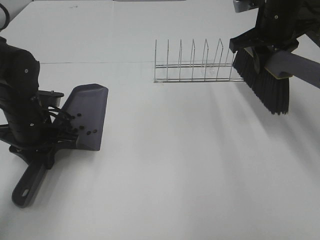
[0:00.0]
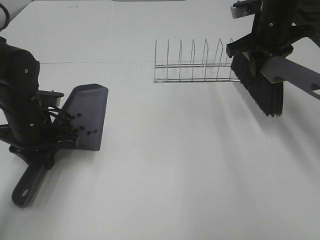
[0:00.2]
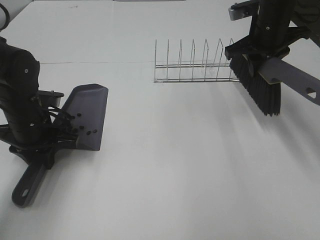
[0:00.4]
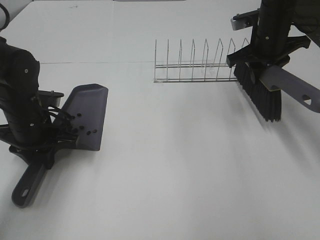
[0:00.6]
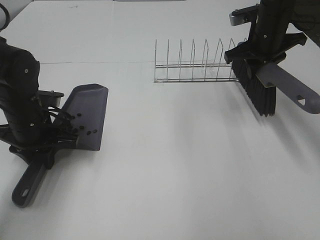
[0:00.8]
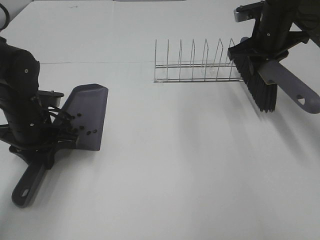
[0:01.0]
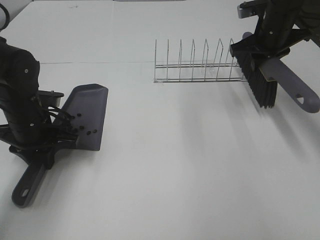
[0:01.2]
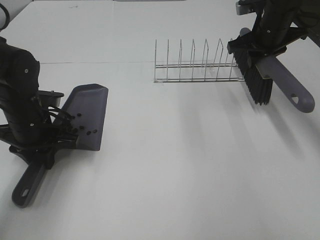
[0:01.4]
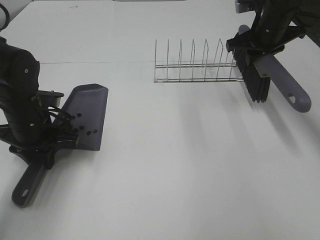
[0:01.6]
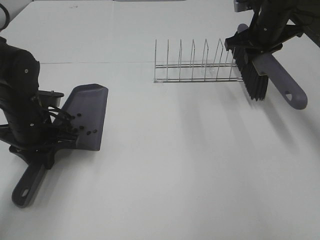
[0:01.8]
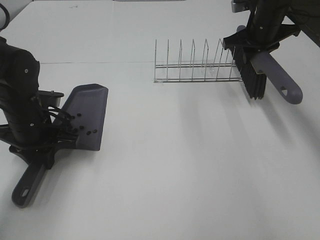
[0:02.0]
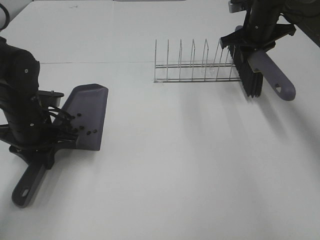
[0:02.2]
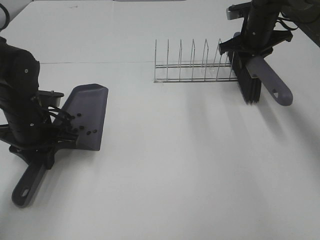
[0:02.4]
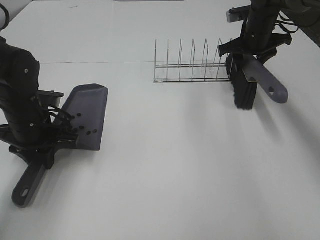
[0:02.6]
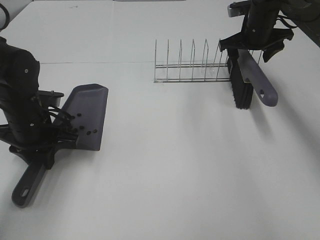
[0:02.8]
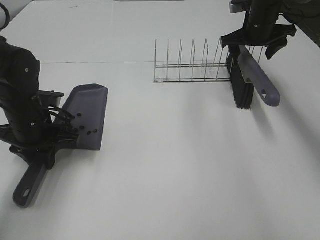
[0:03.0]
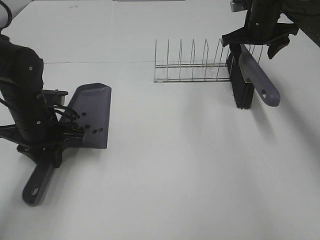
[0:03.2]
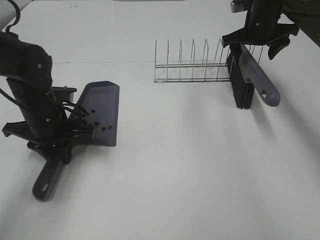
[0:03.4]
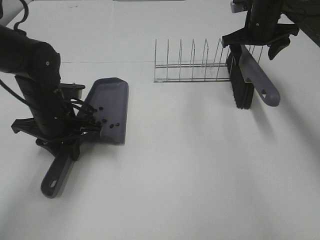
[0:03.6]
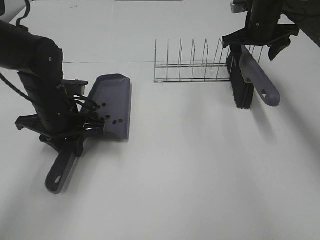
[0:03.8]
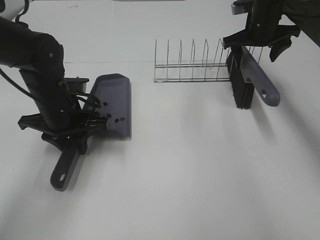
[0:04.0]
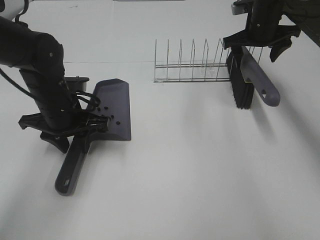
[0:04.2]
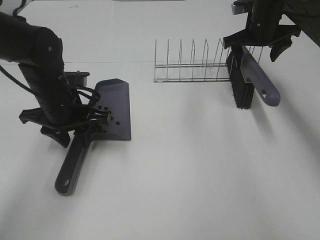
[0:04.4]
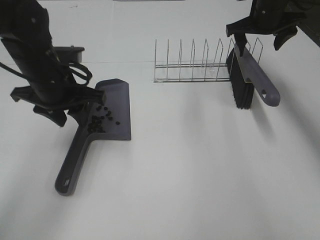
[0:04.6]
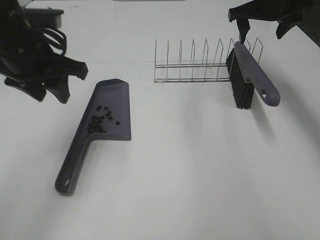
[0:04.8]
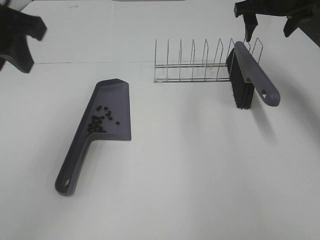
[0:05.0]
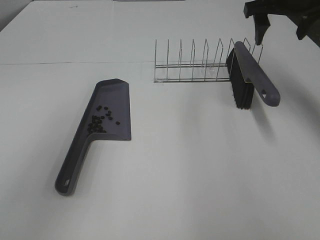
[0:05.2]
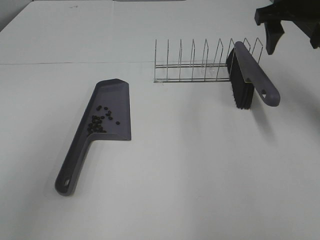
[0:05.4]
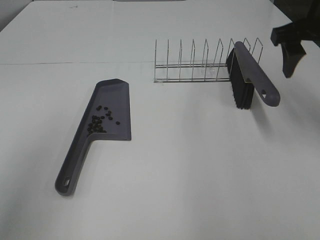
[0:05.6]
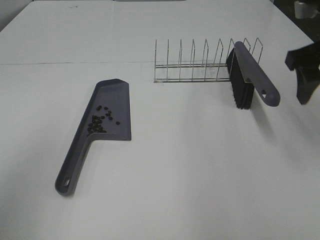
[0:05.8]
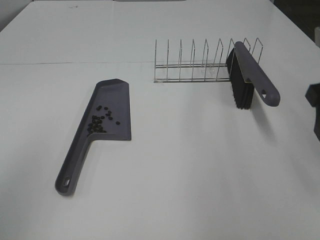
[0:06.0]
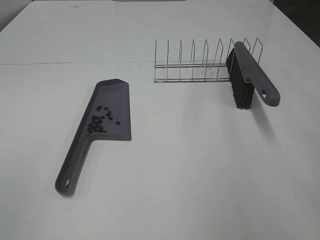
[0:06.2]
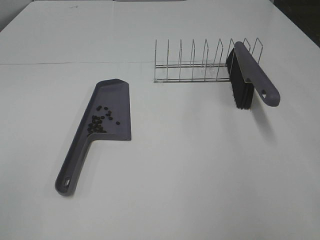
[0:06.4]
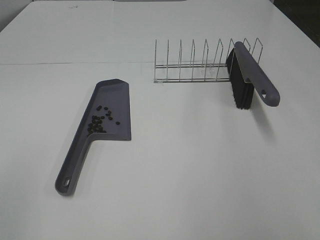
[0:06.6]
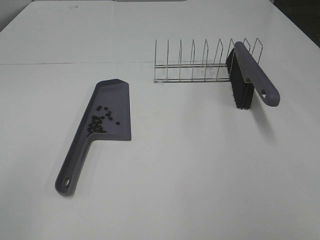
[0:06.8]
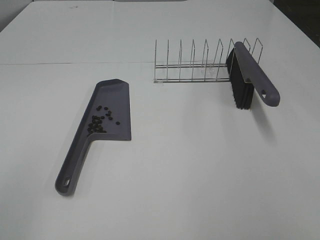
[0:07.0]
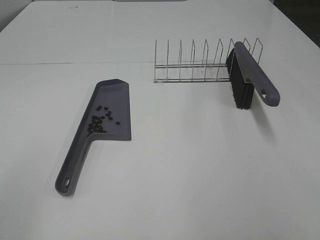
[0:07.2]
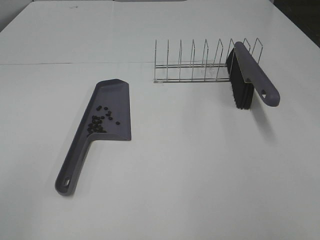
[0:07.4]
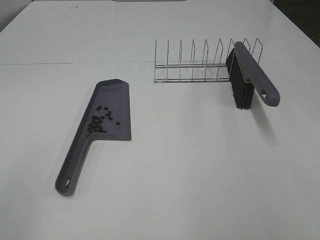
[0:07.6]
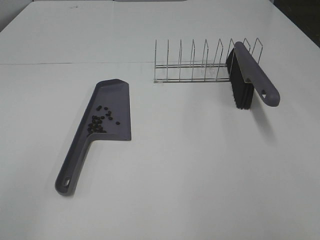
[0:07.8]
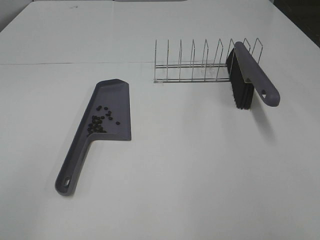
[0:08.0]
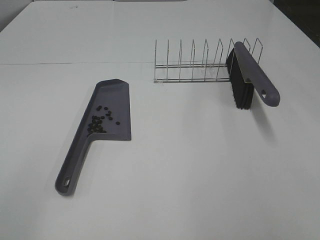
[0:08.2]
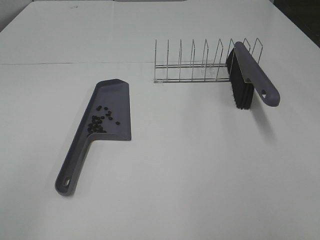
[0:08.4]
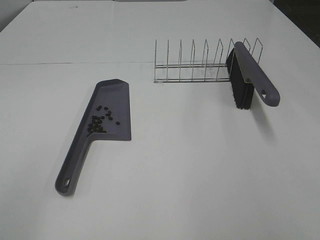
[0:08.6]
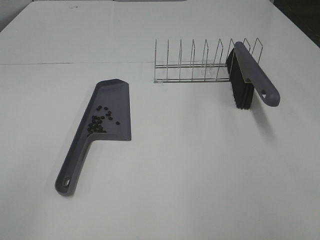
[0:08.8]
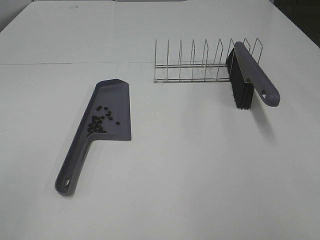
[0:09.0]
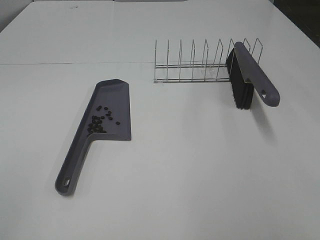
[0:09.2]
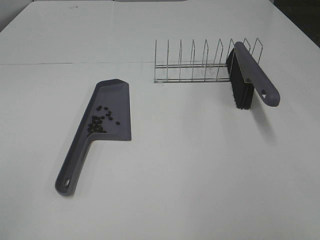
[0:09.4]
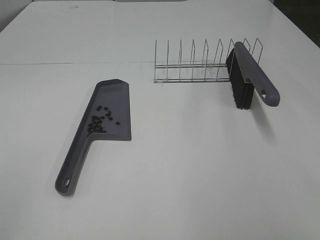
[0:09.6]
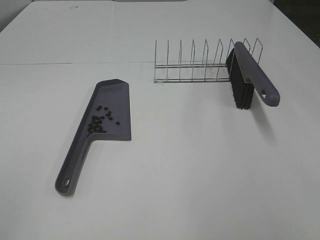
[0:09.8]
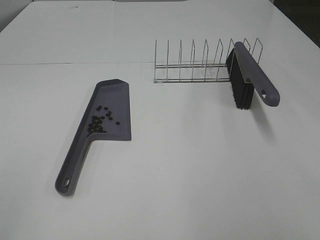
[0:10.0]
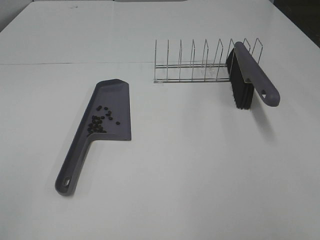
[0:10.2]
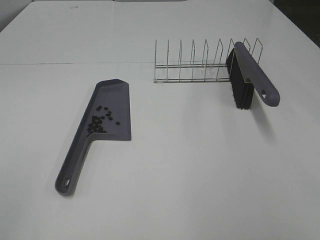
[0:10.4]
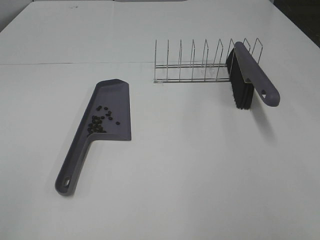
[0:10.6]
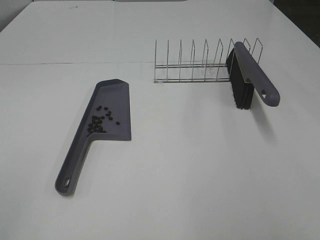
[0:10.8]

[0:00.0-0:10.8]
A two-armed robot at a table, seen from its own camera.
Task of the whole recording: Sweep Coffee Bean.
Step, 0:00.0 to 0:03.0: Right hand:place the broom on the rack.
Step, 0:03.2 to 0:04.6: Left hand:place the dustpan on the table.
0:00.0 to 0:01.6: The right gripper moves approximately 5 cm.
0:01.6 to 0:03.0: The right gripper opens its fingers.
0:03.0 to 0:04.6: The left gripper is displaced upward by about 10 cm, and opens.
0:04.6 to 0:06.2: The right gripper goes approximately 35 cm backward, while the left gripper travels backward and to the left by approximately 35 cm.
0:09.2 to 0:10.8: The two grippers keep their place.

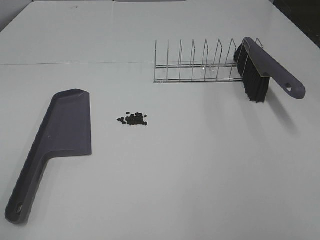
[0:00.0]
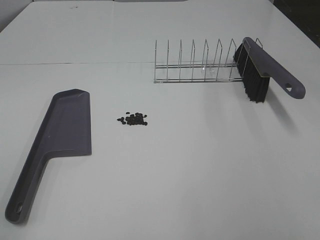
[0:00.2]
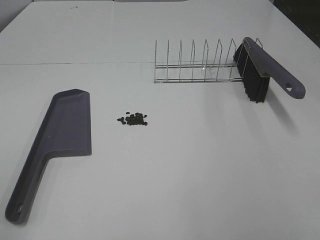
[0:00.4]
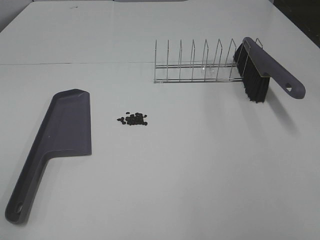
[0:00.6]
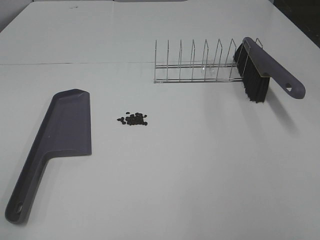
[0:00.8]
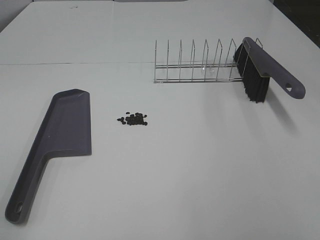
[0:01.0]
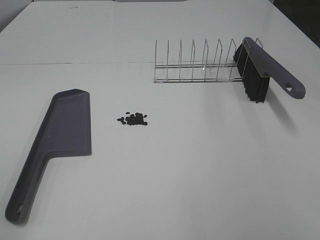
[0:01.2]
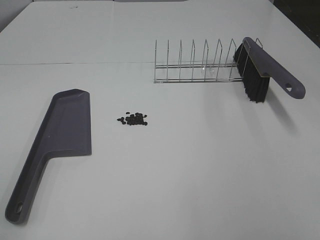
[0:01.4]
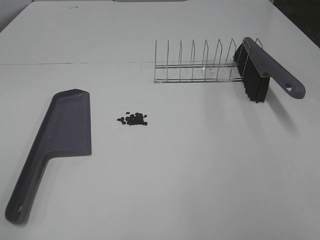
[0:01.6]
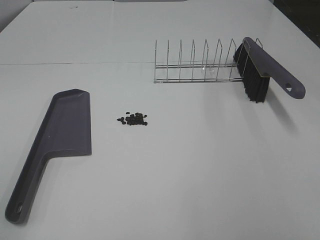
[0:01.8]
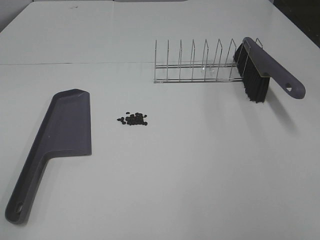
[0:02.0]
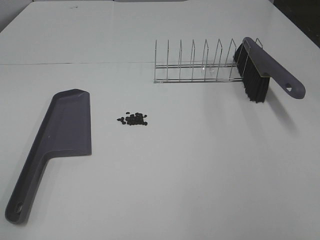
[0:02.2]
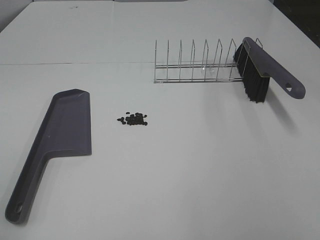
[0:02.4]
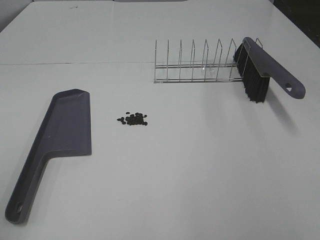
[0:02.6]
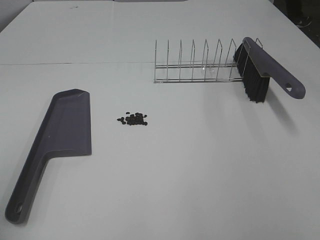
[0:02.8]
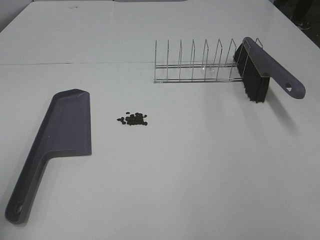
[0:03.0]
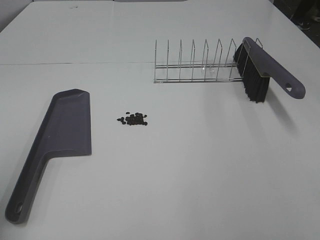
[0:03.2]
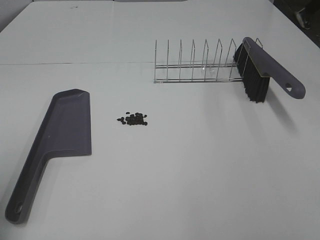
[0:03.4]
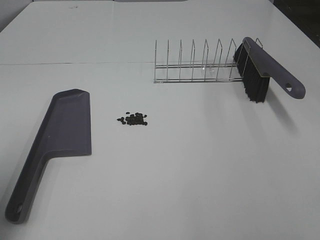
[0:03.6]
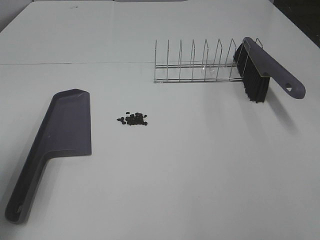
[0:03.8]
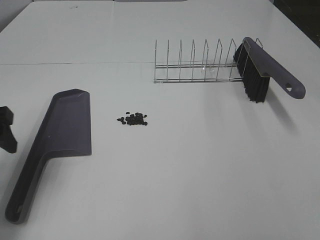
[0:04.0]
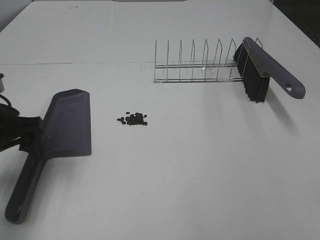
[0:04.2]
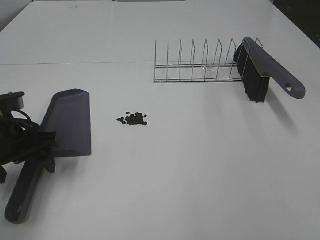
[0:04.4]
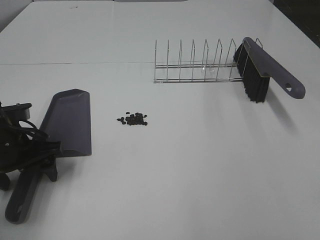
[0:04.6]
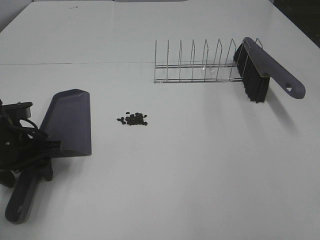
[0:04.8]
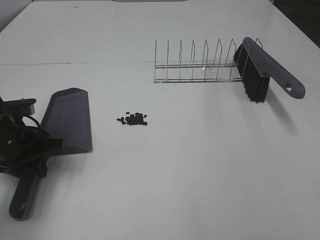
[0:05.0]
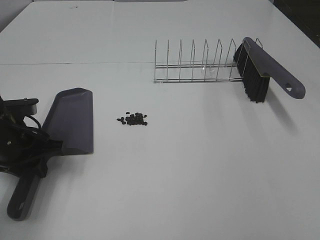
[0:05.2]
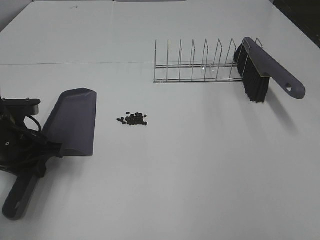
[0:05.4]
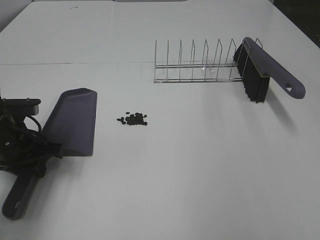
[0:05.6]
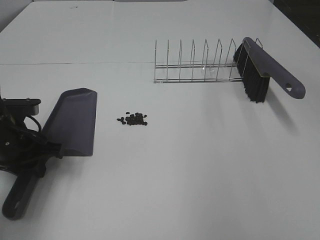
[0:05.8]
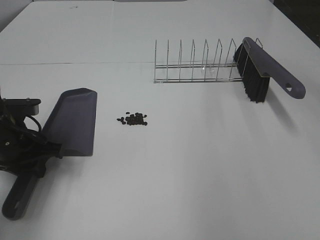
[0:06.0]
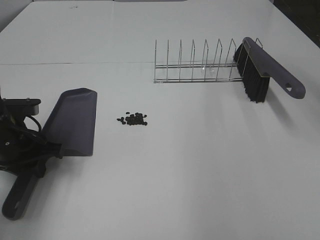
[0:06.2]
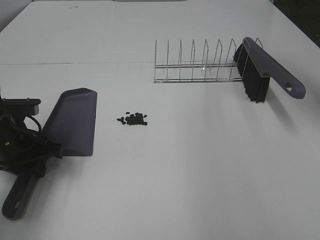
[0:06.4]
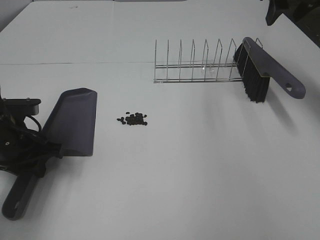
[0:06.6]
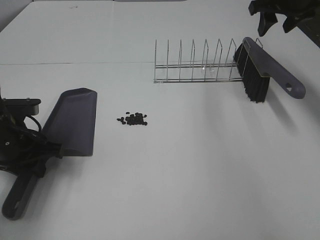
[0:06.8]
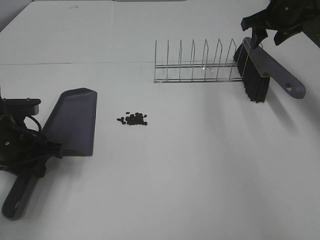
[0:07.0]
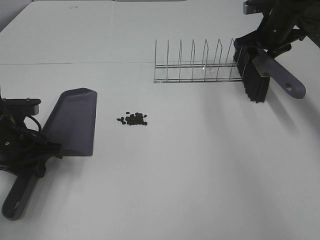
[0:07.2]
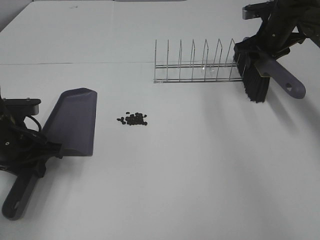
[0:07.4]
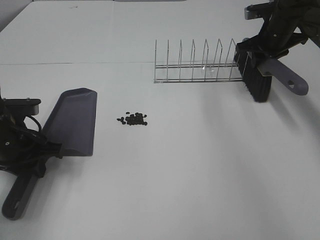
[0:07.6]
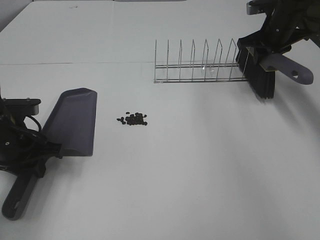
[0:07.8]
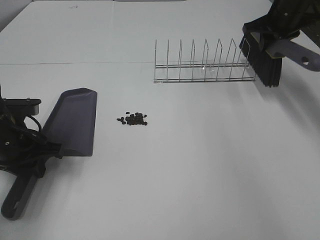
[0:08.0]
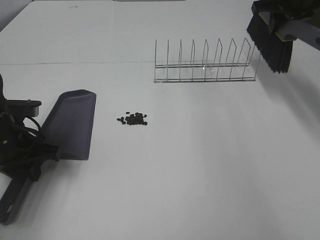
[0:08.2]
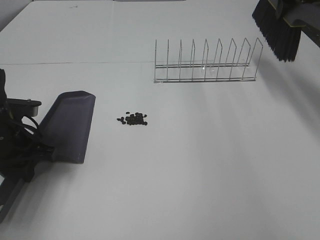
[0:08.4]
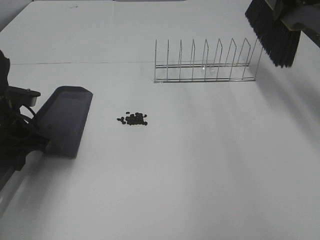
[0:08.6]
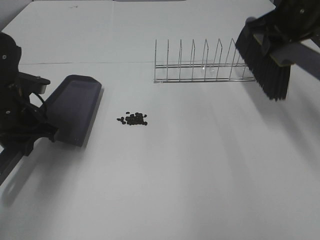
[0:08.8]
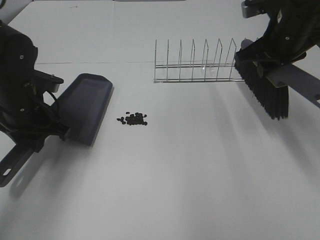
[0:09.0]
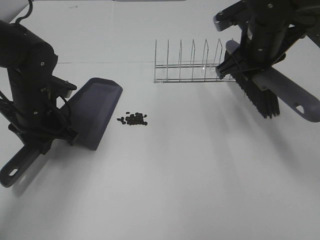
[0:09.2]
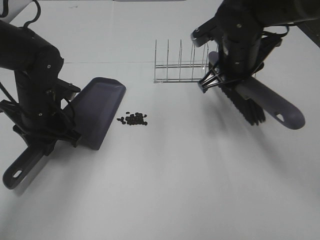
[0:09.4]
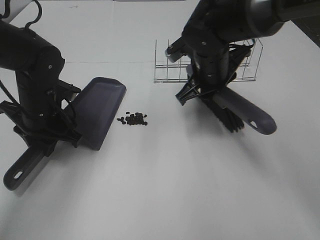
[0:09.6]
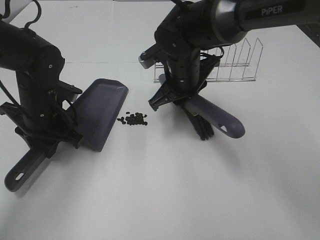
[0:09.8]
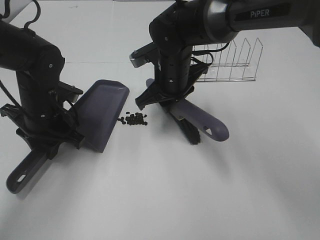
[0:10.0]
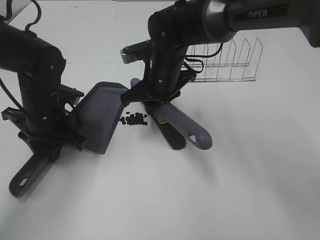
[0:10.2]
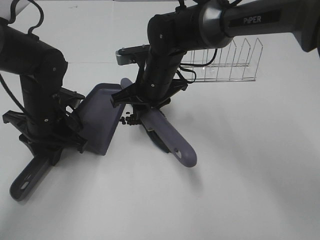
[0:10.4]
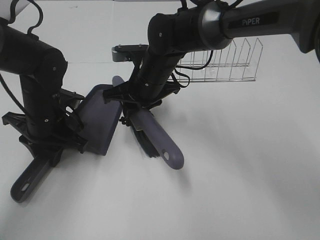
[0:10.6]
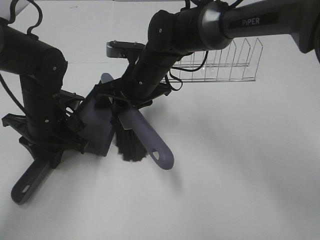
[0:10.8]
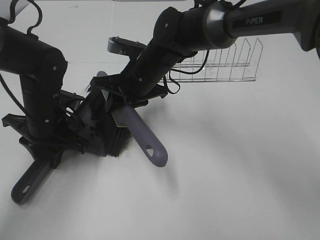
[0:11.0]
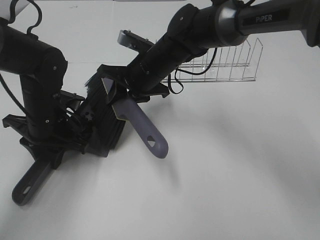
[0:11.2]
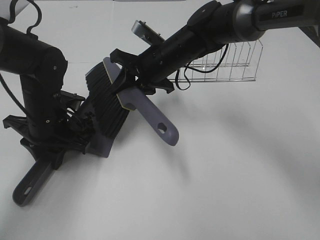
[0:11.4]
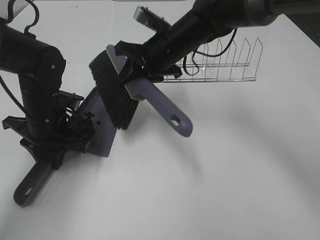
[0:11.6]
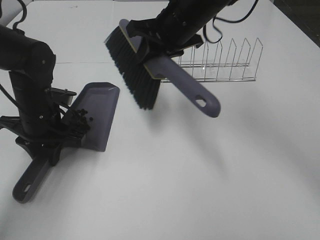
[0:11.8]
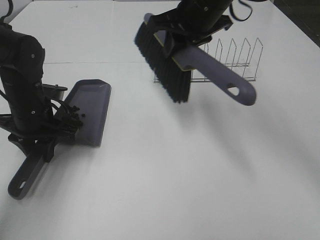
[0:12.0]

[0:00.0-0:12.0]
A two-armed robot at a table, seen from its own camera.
Task of the whole recording: Sweep Coffee Bean.
Step, 0:00.0 to 0:05.0: Left hand: grab the dustpan.
Step, 0:05.0 to 0:07.6: Right hand:grab the broom.
Step, 0:07.8 to 0:11.6: Right hand:sweep the coffee beans into the dustpan.
0:00.0 to 0:01.6: Both grippers stay put.
0:03.0 to 0:04.4: The left gripper shifts about 25 cm forward, downward and to the right.
0:04.4 to 0:06.0: The left gripper closes.
0:06.0 to 0:07.6: The right gripper is displaced forward and downward by roughly 35 cm, and closes.
0:07.6 to 0:09.0: The right gripper heads backward, to the left and upward, covering approximately 15 cm. The left gripper shifts by about 5 cm.
0:09.0 to 0:10.4: The right gripper heads to the left and downward, covering about 25 cm.
0:10.4 to 0:12.0: The right gripper shifts some 15 cm upward and to the right.
